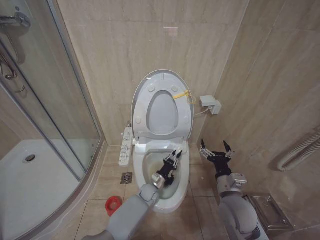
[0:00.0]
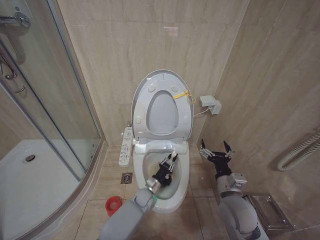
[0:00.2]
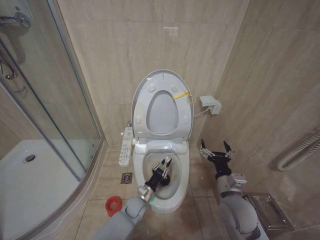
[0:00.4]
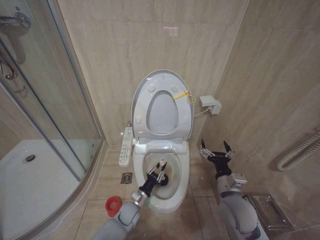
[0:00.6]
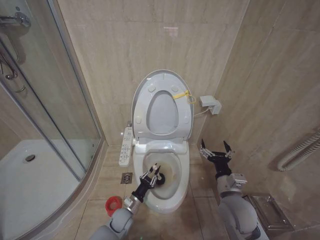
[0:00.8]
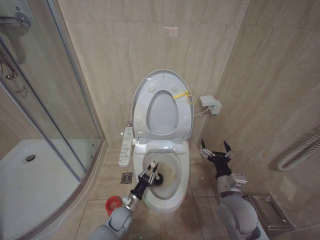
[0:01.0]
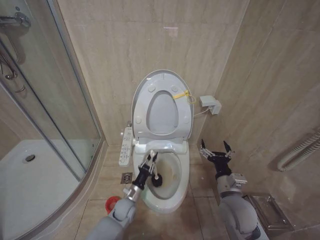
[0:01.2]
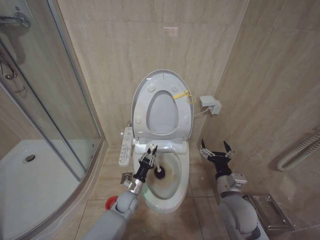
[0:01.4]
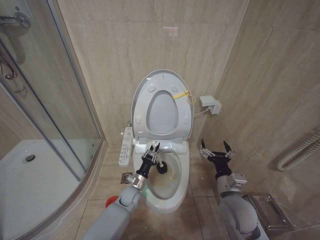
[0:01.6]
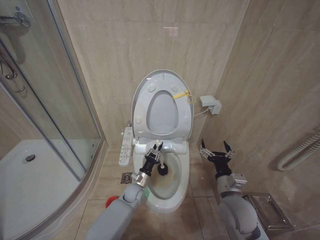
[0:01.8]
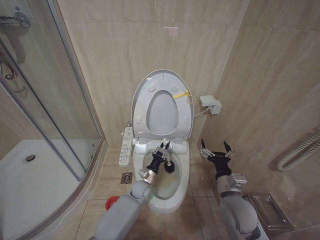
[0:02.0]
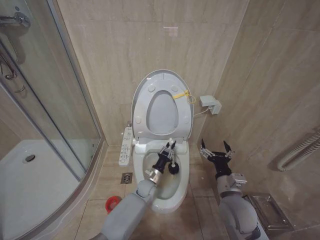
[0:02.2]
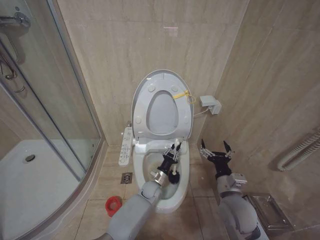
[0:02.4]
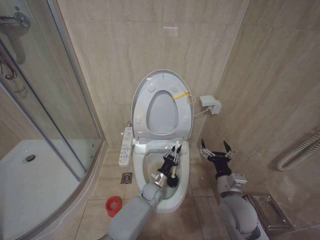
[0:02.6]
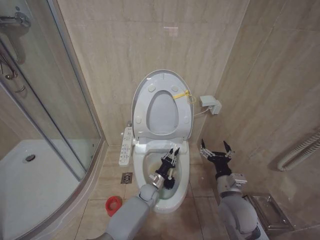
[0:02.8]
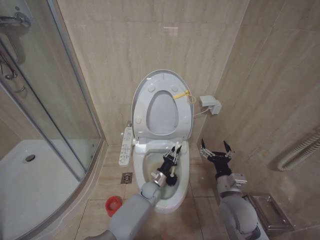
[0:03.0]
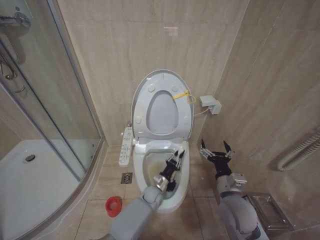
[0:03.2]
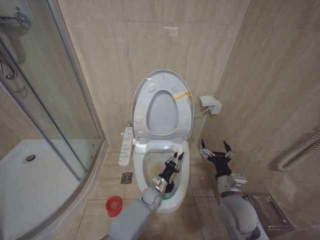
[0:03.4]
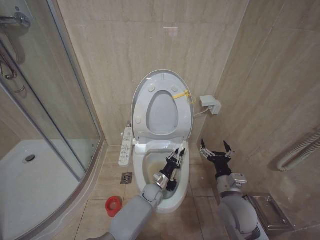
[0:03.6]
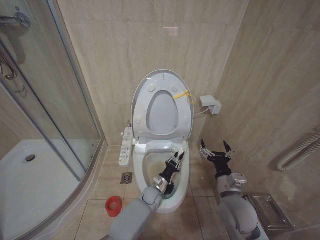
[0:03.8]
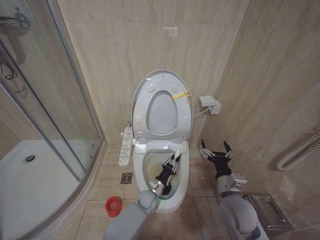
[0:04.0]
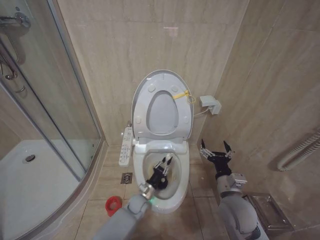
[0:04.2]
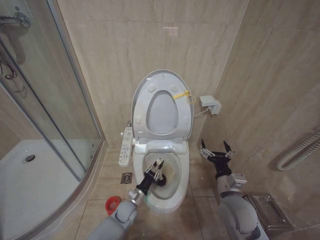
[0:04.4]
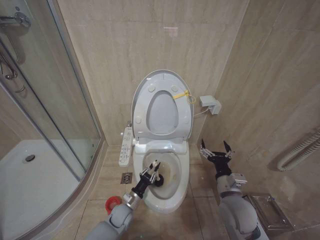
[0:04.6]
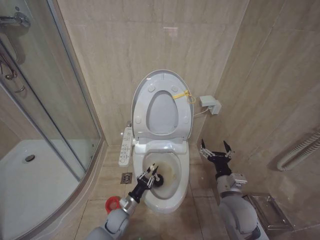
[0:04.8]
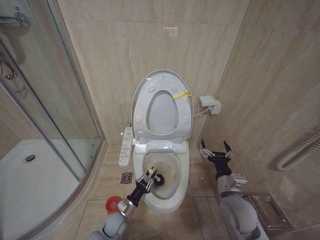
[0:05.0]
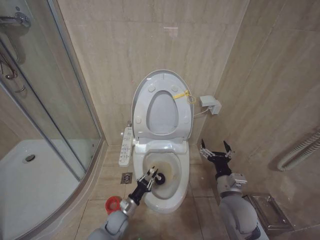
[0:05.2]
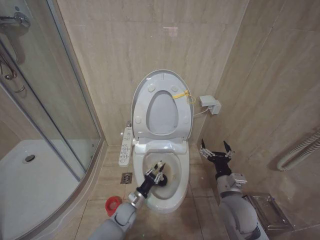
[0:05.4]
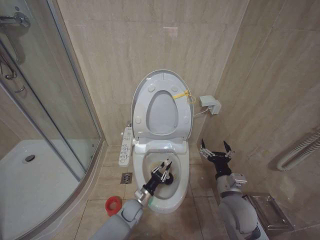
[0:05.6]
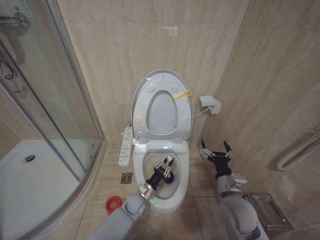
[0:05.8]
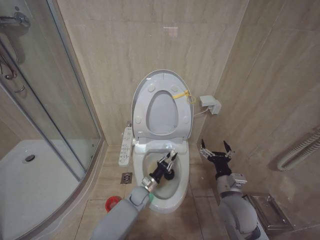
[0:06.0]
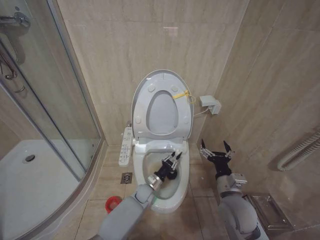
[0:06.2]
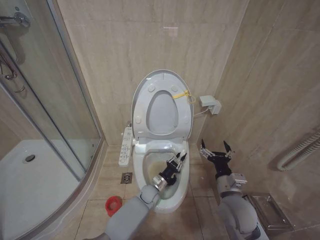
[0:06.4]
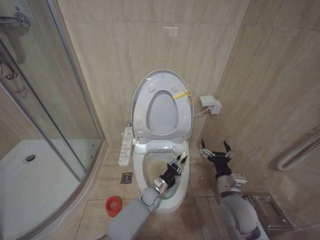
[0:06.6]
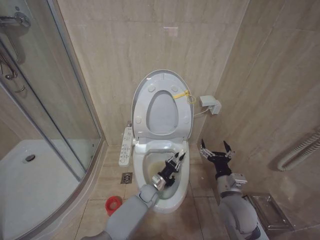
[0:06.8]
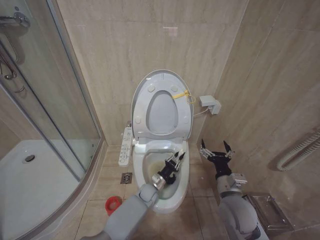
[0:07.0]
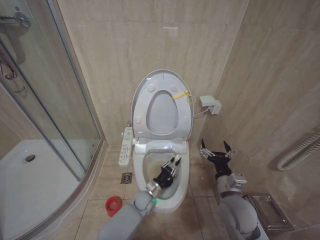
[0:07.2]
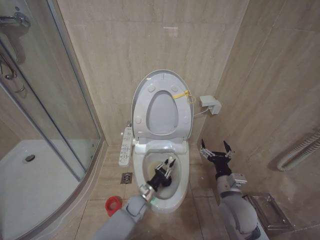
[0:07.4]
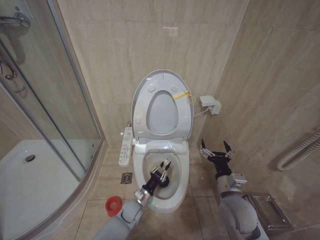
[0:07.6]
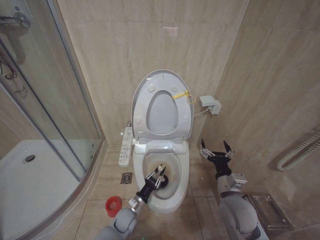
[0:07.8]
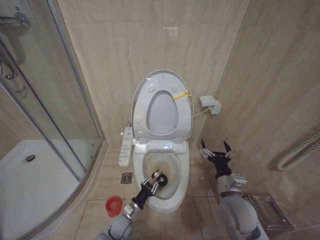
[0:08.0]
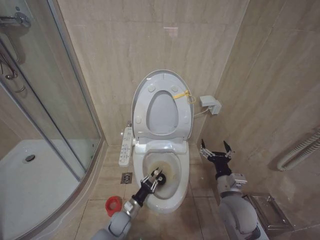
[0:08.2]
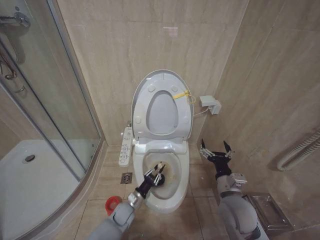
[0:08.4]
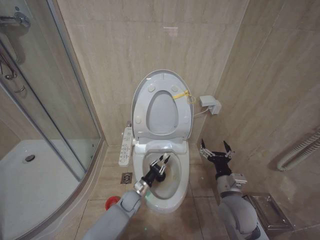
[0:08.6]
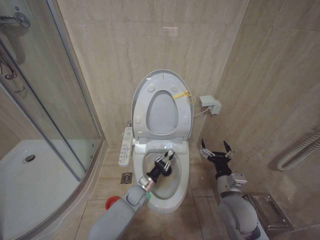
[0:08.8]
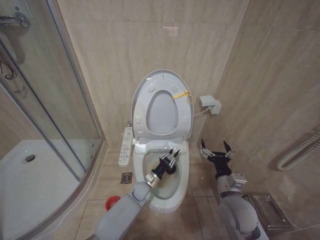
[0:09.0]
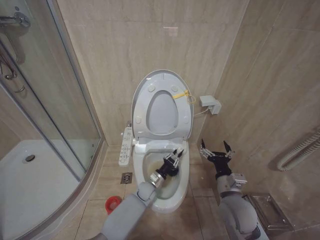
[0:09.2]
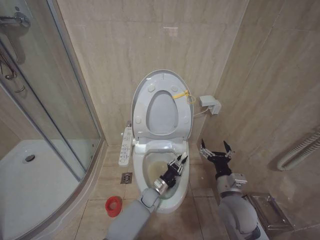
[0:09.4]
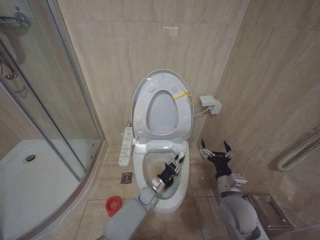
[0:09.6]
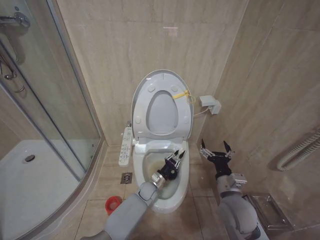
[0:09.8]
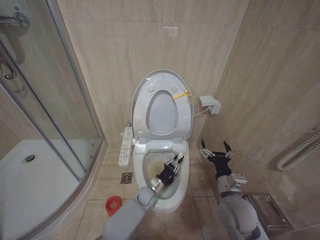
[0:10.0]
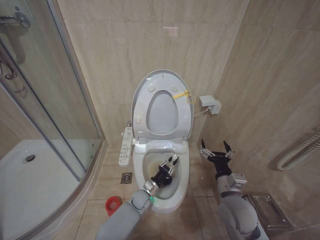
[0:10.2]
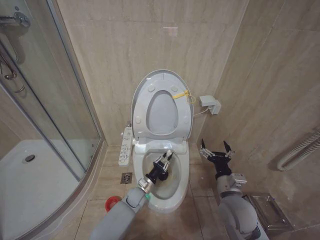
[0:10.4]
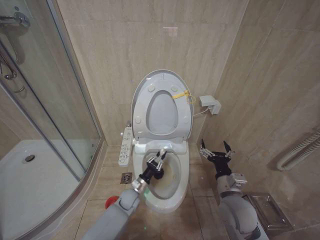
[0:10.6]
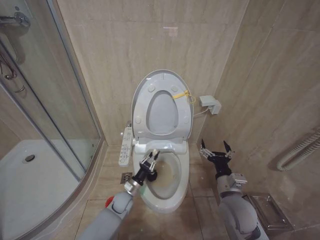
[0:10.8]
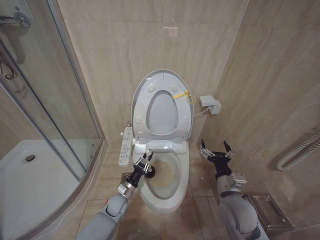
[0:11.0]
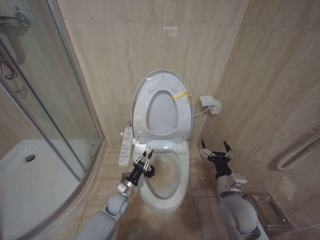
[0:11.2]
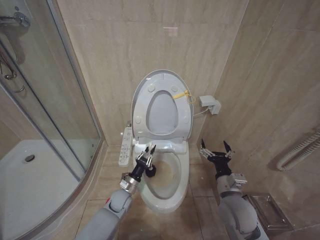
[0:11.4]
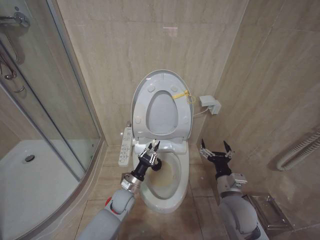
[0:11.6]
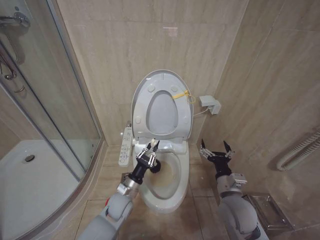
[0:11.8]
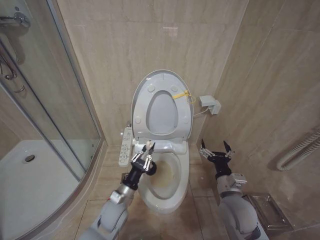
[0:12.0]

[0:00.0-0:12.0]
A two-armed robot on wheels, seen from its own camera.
Task of the whole recording: Open the toilet lid, clean the toilet bowl with a toilet brush, close the toilet lid, and flush.
0:00.0 to 0:01.6: The left gripper shifts roughly 10 cm to the left.
0:01.6 to 0:03.0: The left gripper goes approximately 10 cm to the right.
0:03.0 to 0:04.4: The left gripper moves to the left and backward, approximately 10 cm.
0:06.0 to 0:07.6: The left gripper moves roughly 5 cm to the right and comes back.
0:07.6 to 0:09.0: The left gripper heads forward, covering roughly 5 cm.
0:09.0 to 0:10.4: The grippers move only a little.
0:10.4 to 0:12.0: The left gripper moves upward, backward and to the left, some 15 cm.

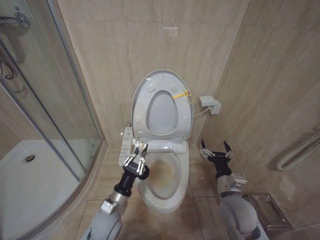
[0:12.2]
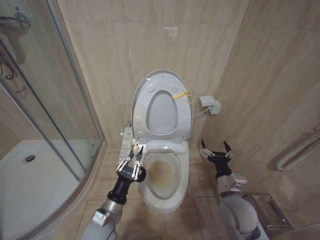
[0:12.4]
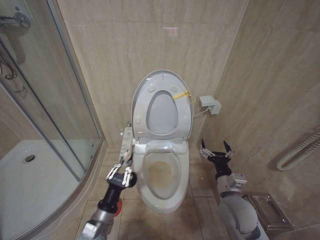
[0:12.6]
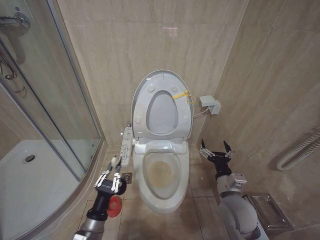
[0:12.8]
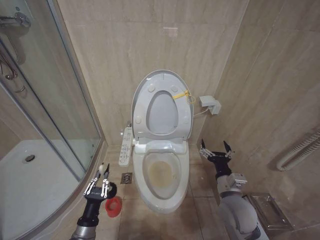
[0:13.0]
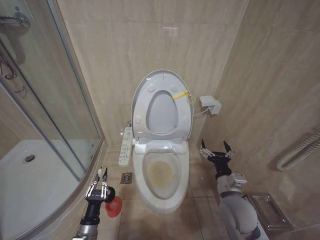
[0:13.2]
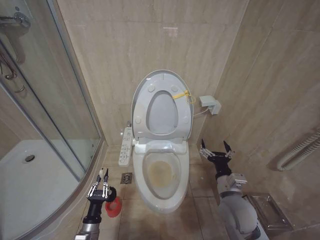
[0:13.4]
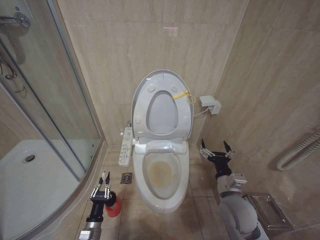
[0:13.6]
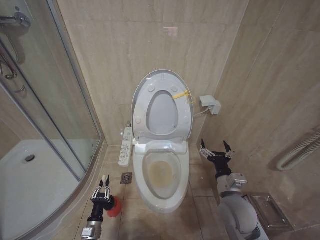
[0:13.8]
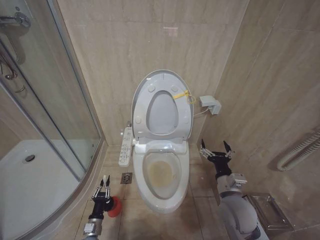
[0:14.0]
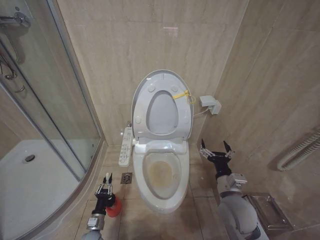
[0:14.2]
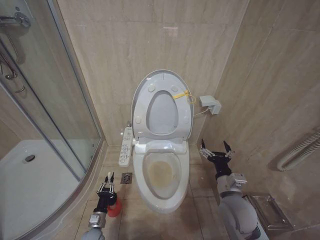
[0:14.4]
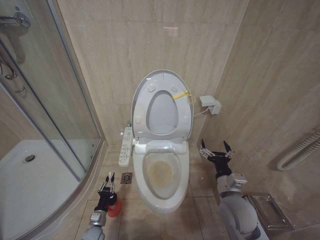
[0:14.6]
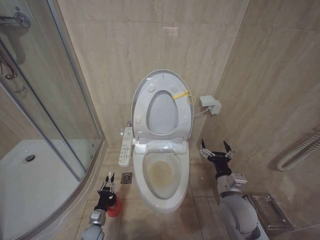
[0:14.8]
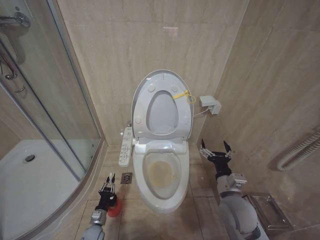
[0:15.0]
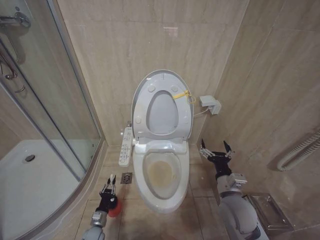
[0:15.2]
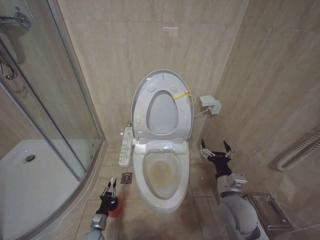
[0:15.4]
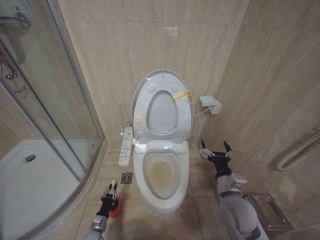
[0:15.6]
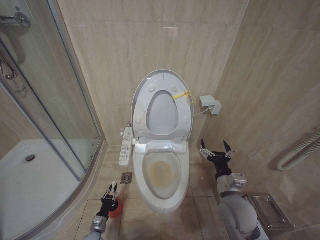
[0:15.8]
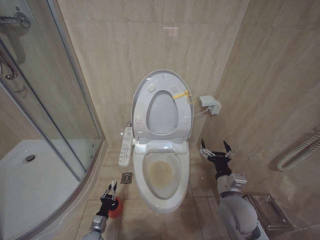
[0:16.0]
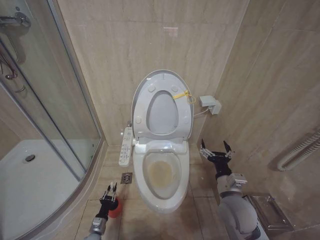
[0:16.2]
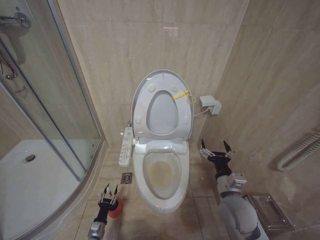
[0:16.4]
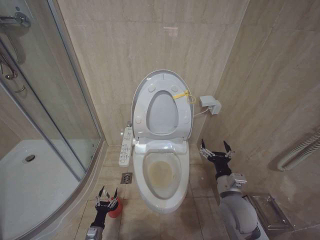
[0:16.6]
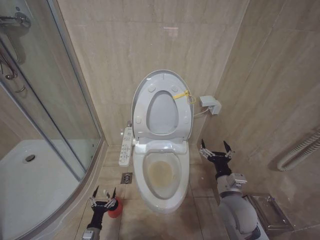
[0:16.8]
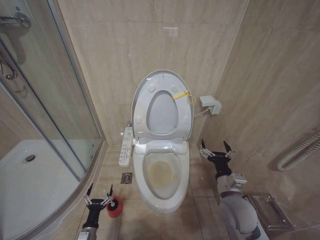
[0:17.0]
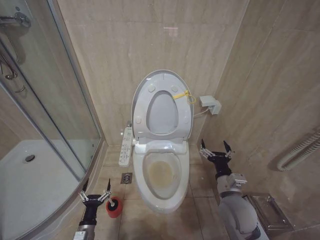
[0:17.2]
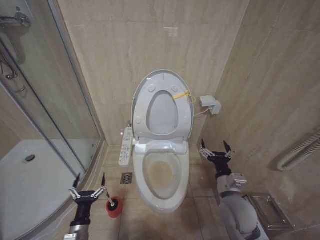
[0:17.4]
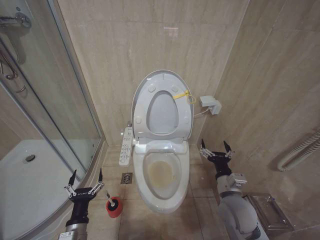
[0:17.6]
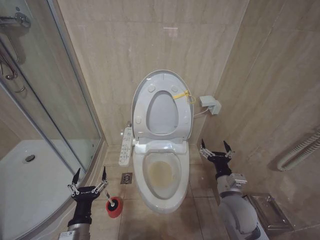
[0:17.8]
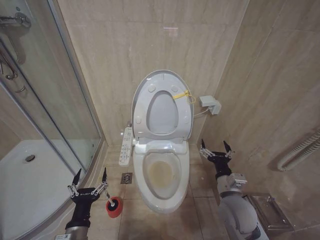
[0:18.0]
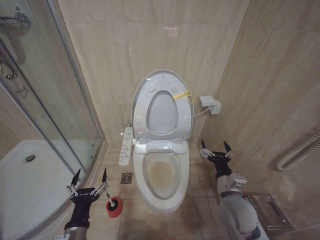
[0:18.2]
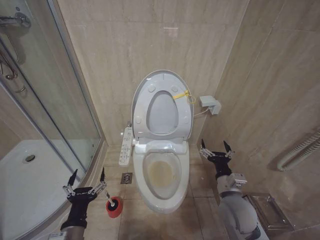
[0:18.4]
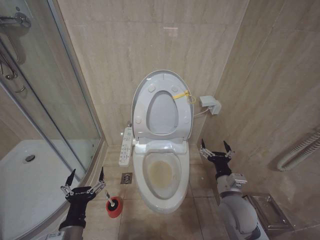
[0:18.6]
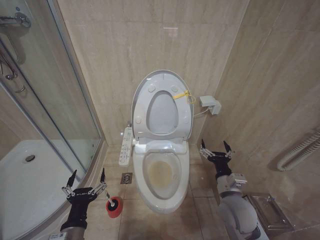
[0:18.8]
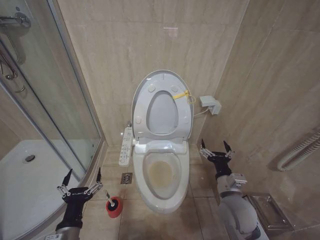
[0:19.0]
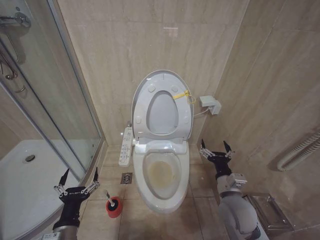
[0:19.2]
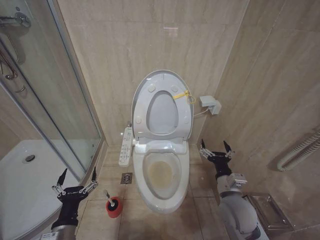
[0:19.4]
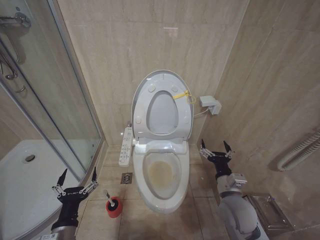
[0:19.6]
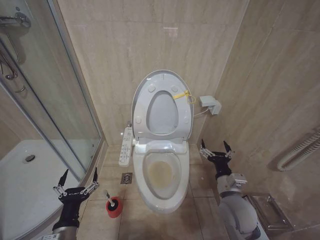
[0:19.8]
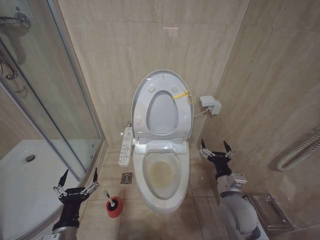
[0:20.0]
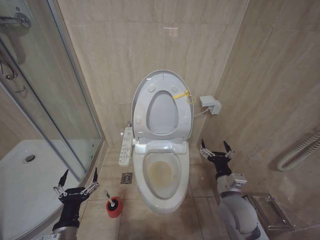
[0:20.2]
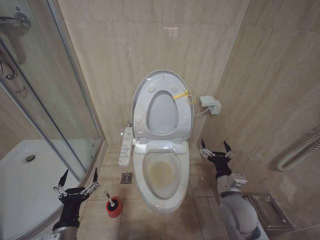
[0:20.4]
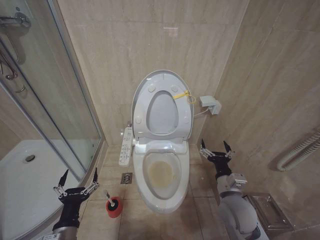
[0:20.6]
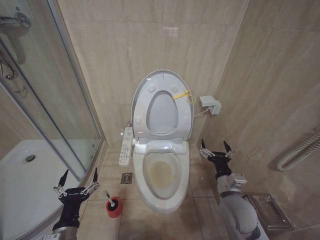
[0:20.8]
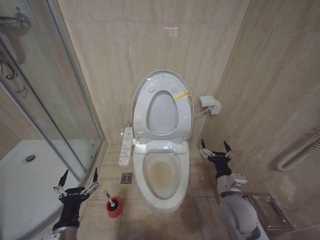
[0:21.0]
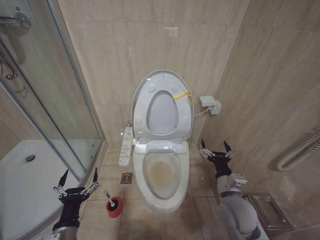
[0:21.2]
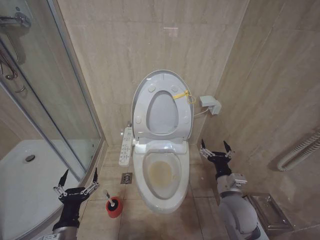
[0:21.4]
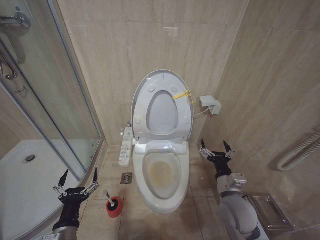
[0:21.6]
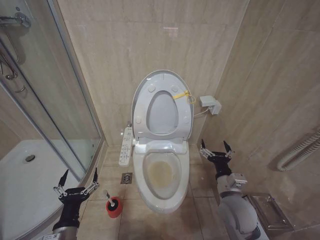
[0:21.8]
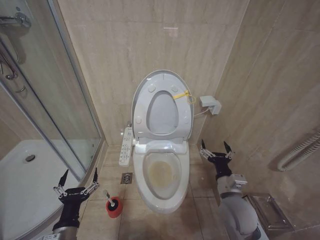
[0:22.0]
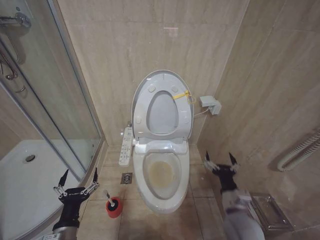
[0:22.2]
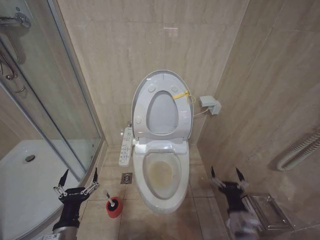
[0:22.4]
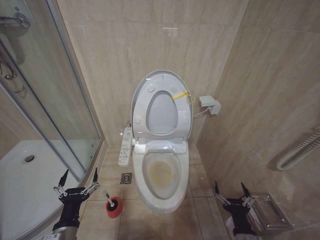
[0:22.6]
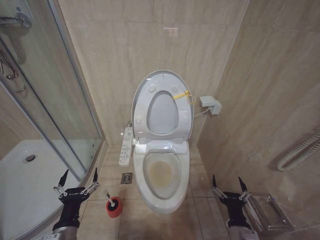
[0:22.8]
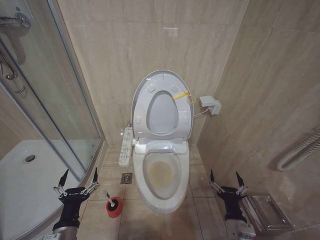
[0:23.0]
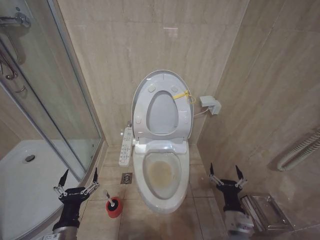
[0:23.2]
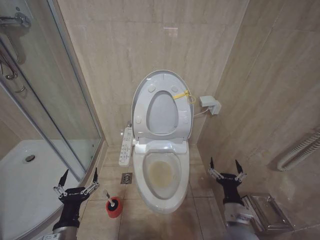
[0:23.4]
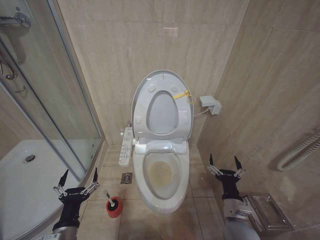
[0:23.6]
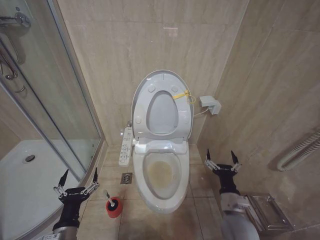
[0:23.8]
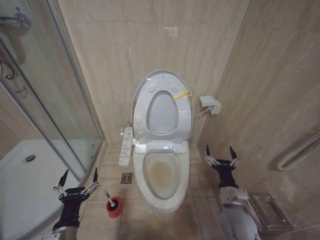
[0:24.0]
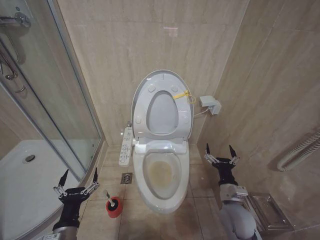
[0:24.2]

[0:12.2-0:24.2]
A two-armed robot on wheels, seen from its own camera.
Task of the whole recording: Open the toilet lid, clean the toilet bowl with a toilet brush, close the toilet lid, and flush.
0:12.2 to 0:13.8: The left gripper heads downward and to the left, covering approximately 20 cm.
0:13.8 to 0:15.2: The left gripper goes about 10 cm downward and forward.
0:15.2 to 0:16.6: The left gripper heads backward, covering about 5 cm.
0:16.6 to 0:18.2: The left gripper goes about 30 cm upward, and opens up.
0:18.2 to 0:19.8: The grippers move only a little.
0:19.8 to 0:21.2: Both grippers stay put.
0:21.2 to 0:22.6: The right gripper travels backward and downward by about 15 cm.
0:22.6 to 0:24.2: The right gripper goes about 10 cm forward.
